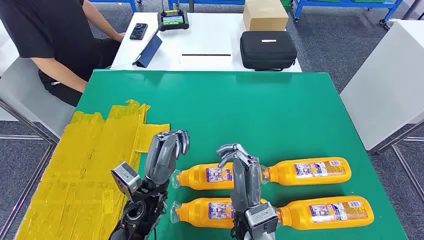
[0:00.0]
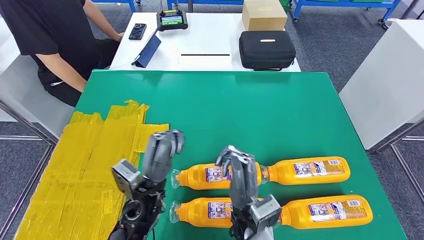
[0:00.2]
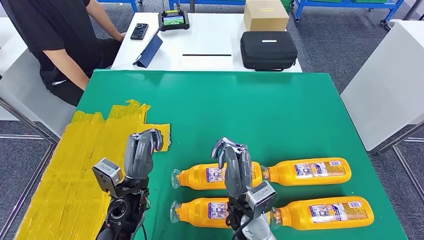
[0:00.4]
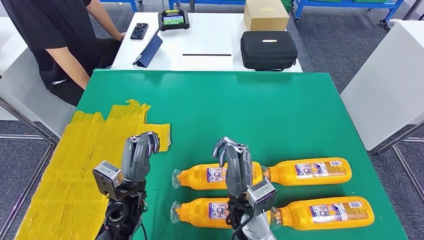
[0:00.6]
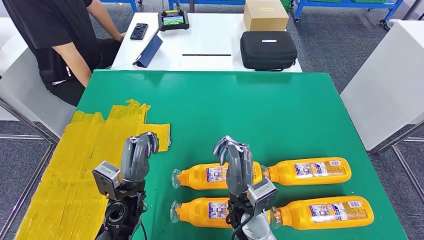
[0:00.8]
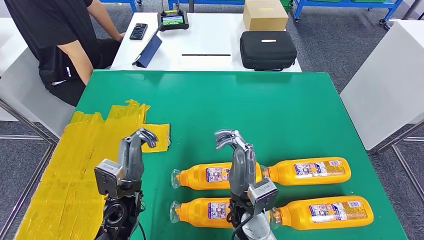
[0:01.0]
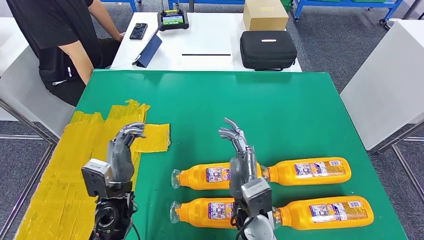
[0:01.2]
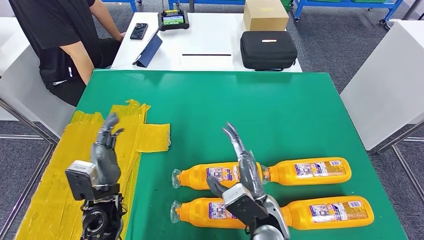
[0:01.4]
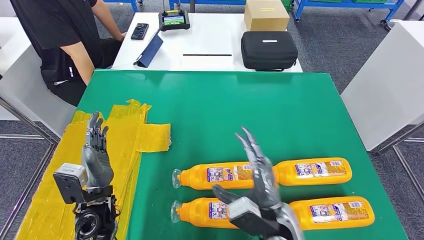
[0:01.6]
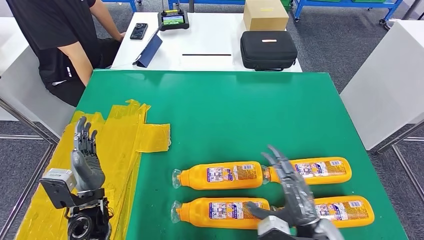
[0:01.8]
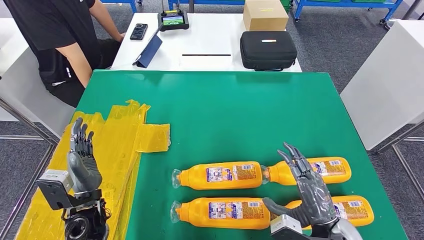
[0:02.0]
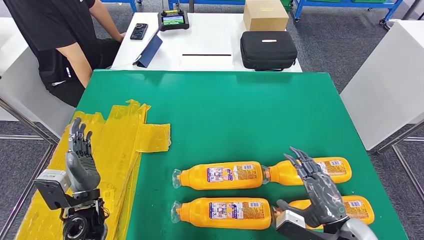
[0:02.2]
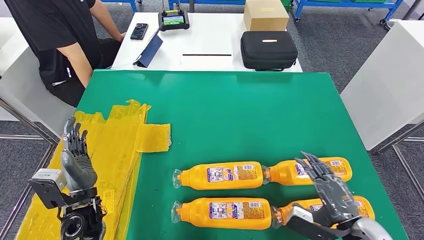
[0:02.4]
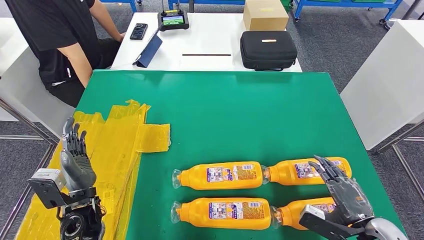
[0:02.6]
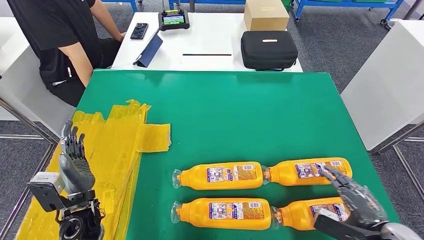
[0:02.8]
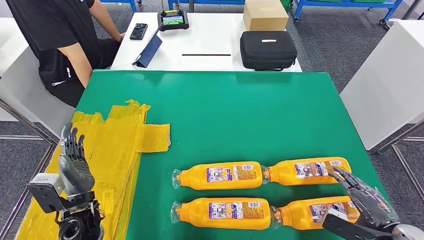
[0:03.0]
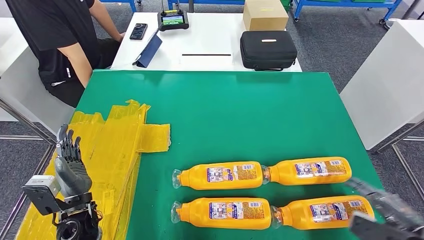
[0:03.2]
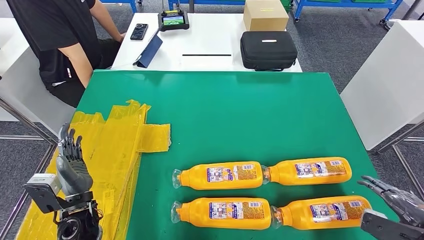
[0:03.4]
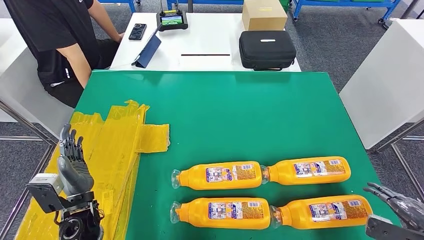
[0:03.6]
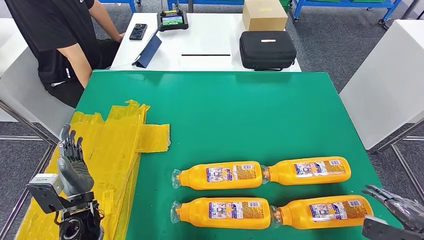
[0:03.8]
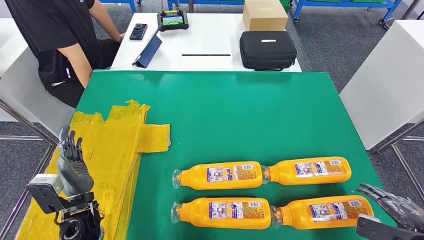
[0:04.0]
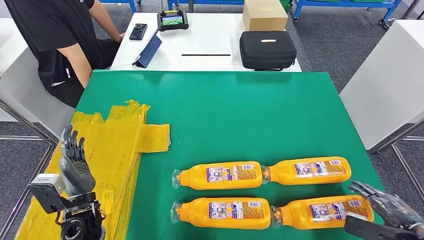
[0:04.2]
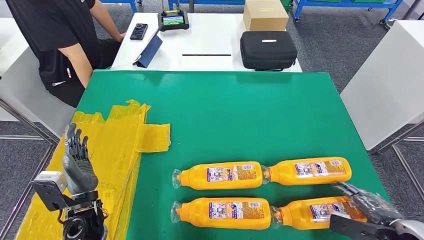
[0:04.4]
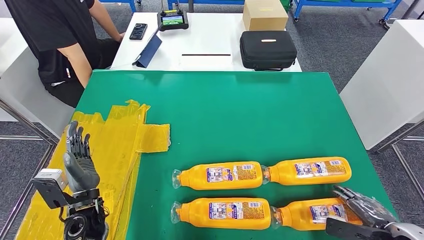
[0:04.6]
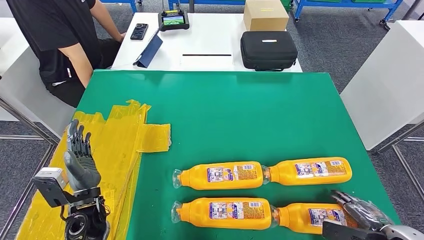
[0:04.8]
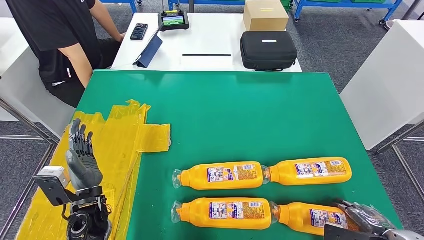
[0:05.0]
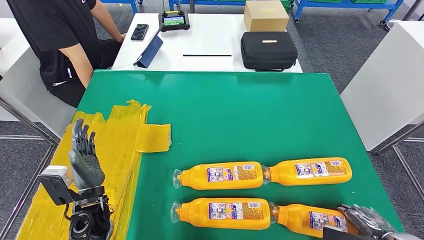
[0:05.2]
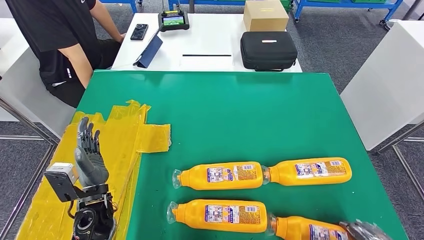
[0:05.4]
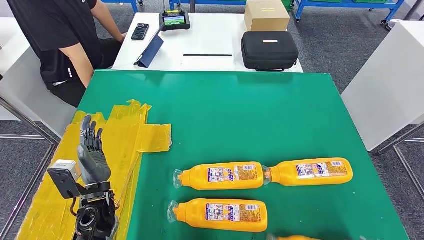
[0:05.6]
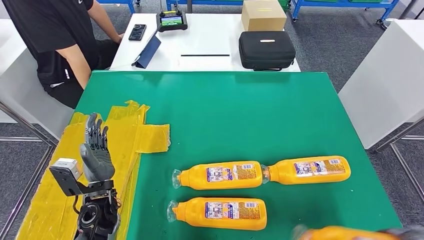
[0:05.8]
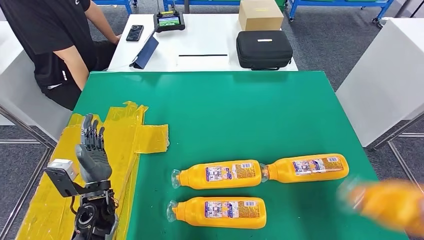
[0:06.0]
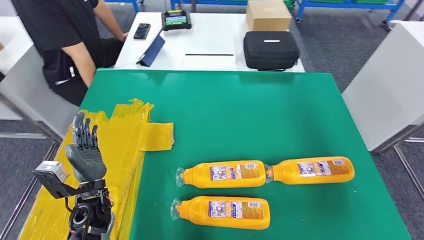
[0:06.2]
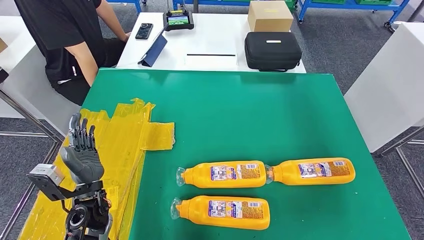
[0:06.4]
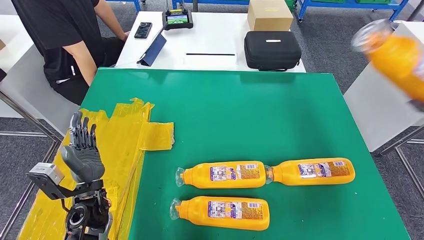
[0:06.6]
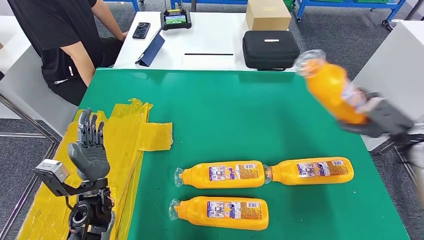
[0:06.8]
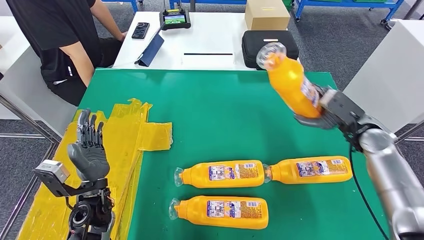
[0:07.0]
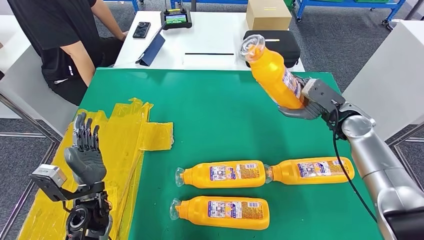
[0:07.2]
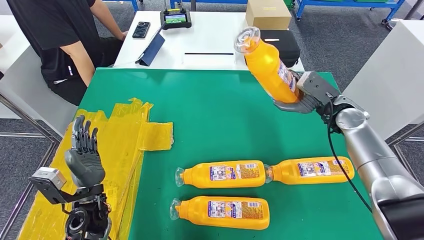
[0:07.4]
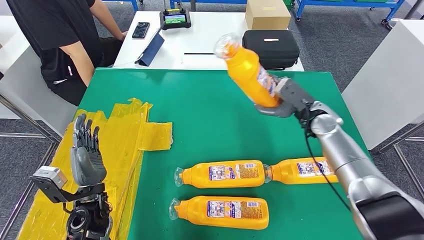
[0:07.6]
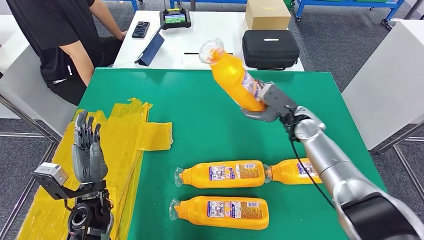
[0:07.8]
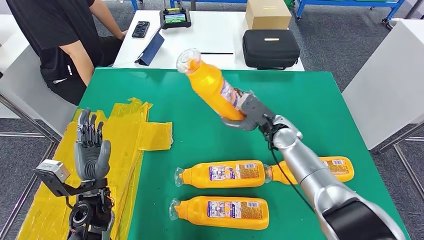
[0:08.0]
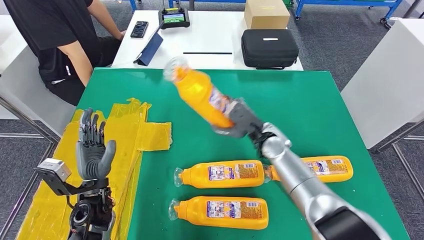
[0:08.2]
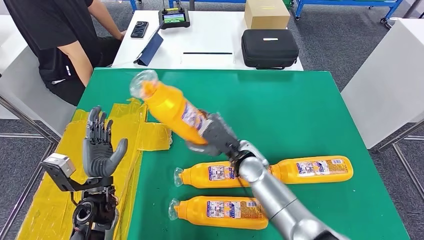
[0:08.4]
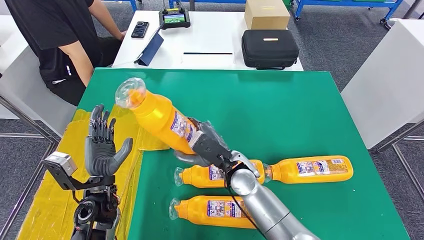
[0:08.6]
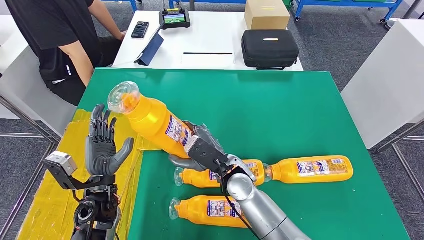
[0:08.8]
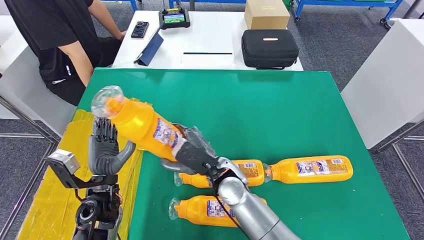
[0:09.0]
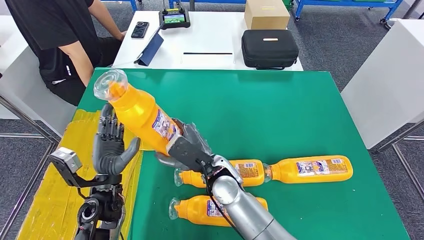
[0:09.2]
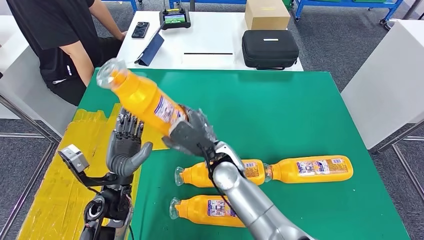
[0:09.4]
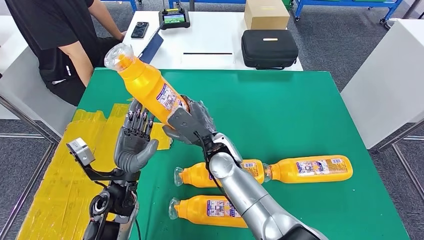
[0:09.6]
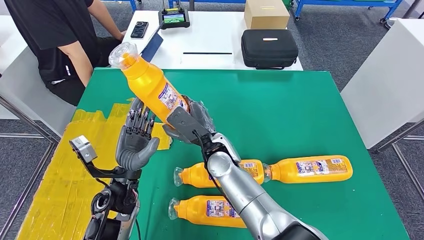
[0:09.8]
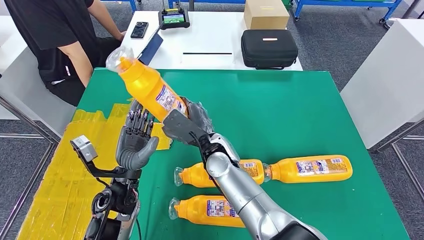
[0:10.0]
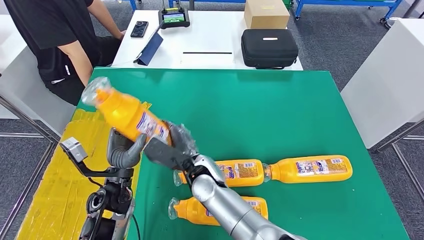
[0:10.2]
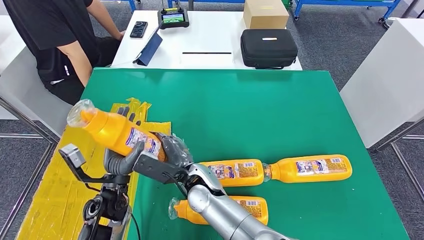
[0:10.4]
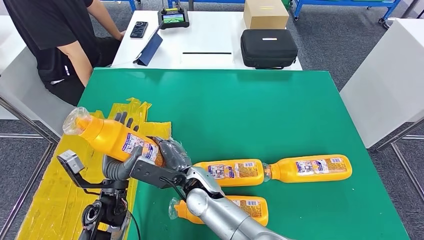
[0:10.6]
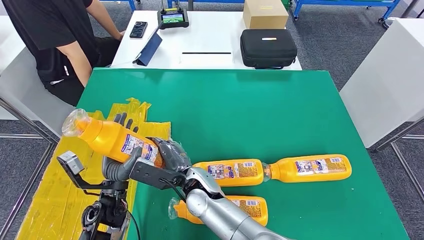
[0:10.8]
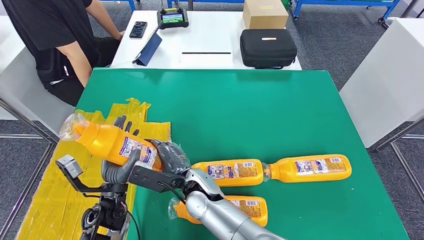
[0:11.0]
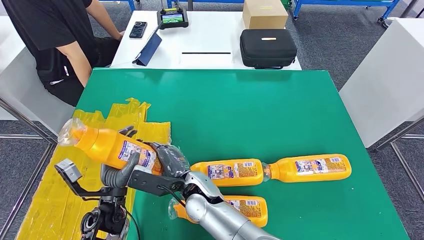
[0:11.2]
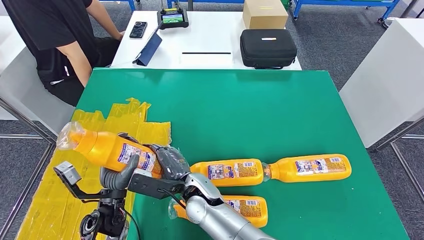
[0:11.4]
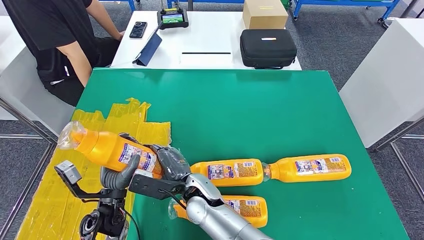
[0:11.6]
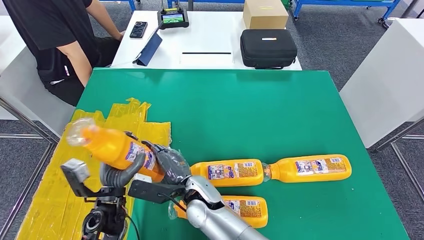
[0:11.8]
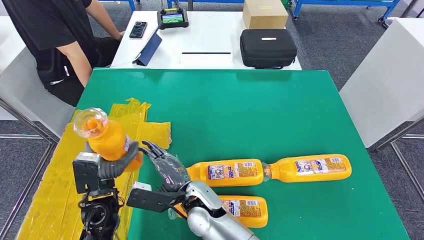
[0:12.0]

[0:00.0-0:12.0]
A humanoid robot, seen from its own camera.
Step, 0:00.0 to 0:07.0: Take the bottle from the table.
0:09.0 to 0:10.4: The right hand is displaced to the left by roughly 10 cm.

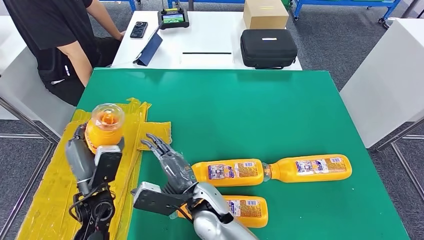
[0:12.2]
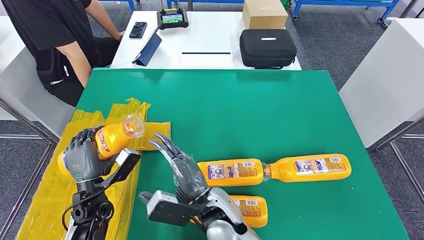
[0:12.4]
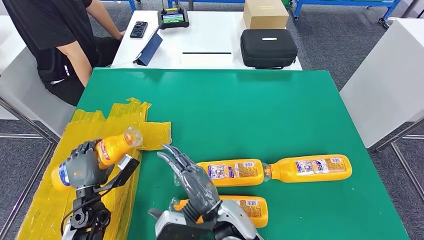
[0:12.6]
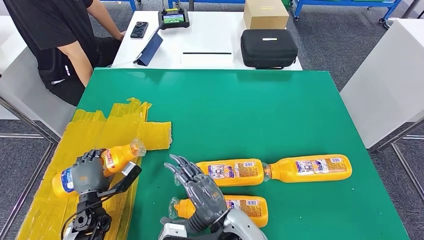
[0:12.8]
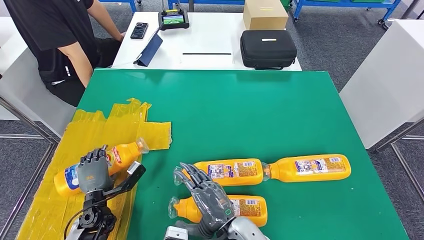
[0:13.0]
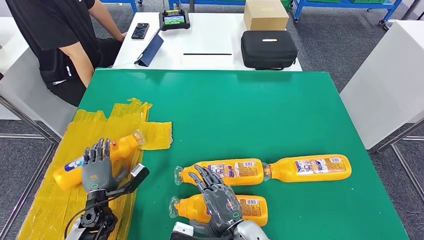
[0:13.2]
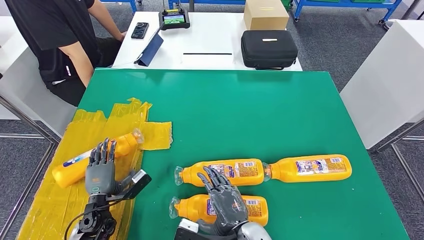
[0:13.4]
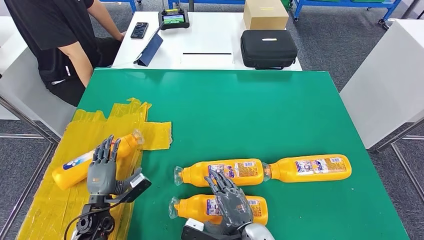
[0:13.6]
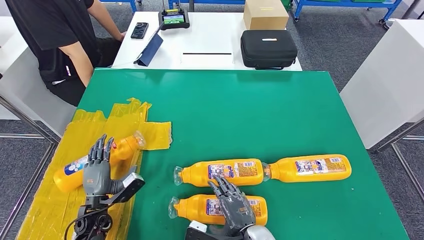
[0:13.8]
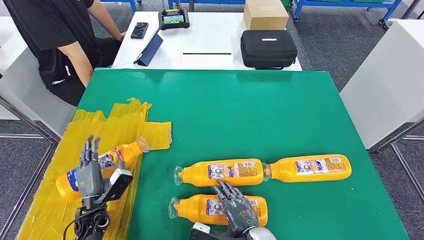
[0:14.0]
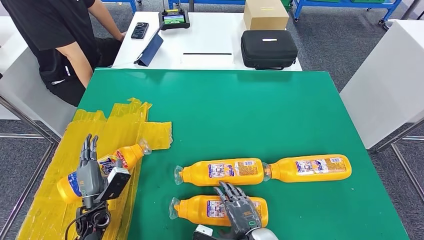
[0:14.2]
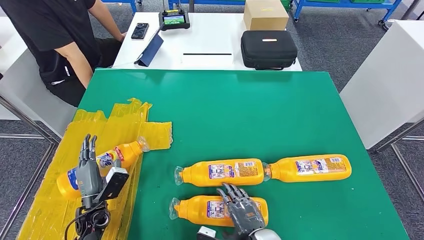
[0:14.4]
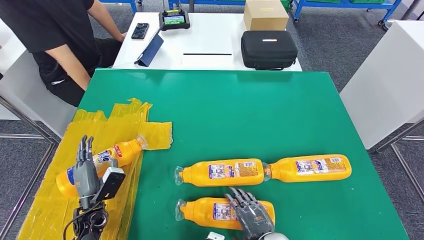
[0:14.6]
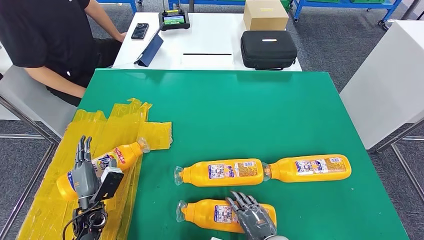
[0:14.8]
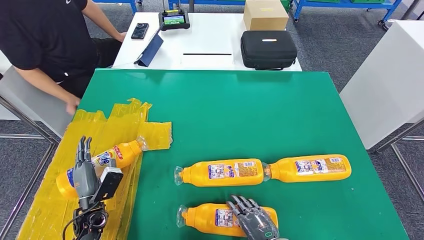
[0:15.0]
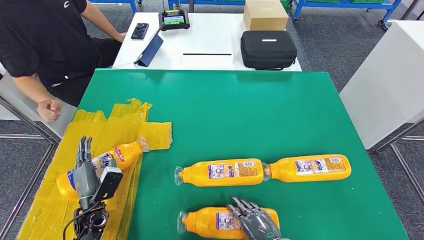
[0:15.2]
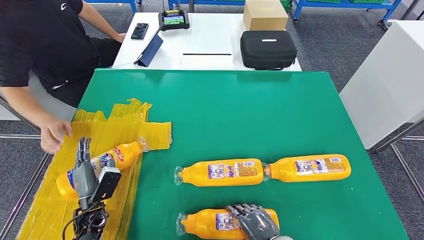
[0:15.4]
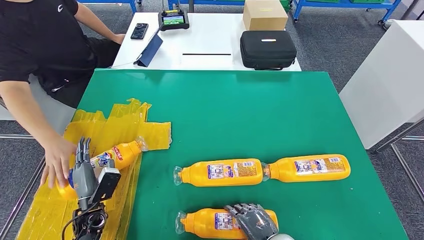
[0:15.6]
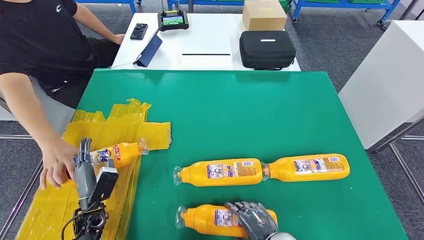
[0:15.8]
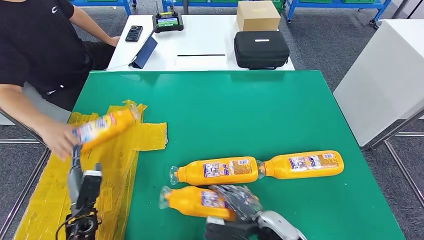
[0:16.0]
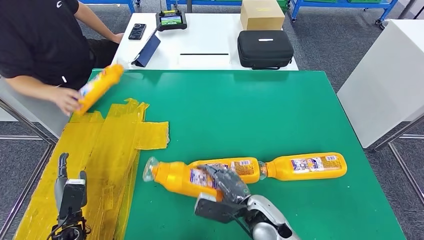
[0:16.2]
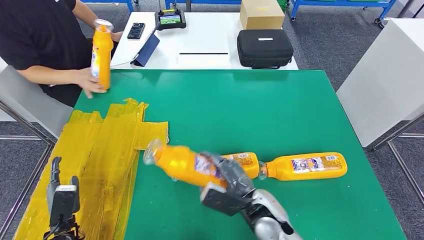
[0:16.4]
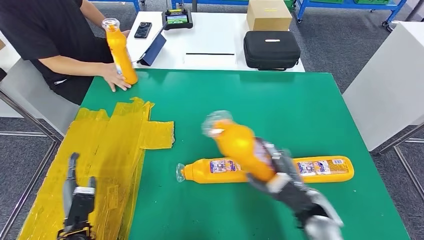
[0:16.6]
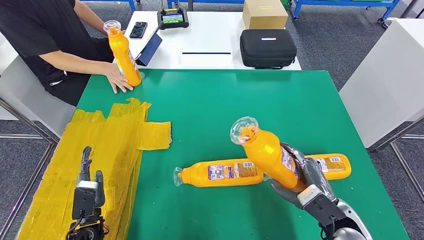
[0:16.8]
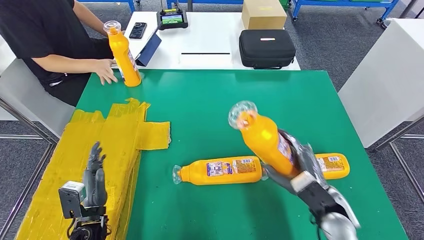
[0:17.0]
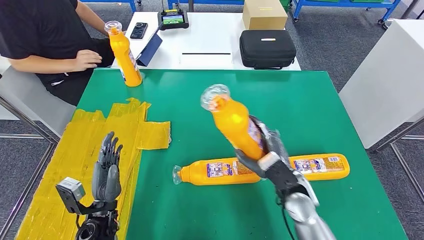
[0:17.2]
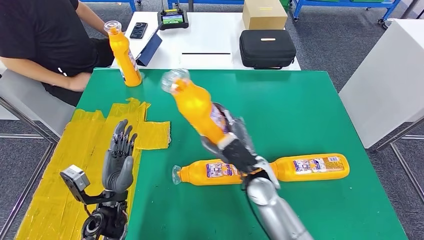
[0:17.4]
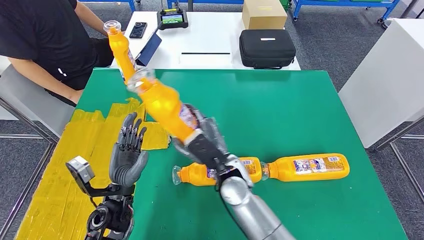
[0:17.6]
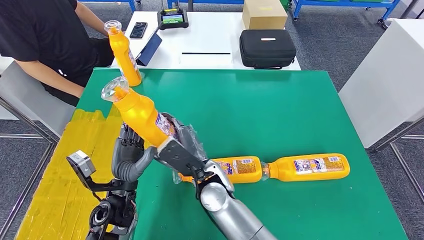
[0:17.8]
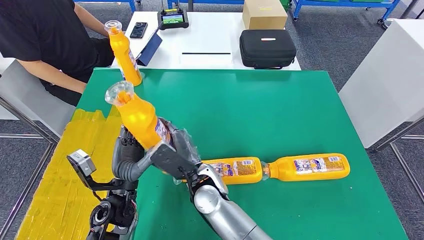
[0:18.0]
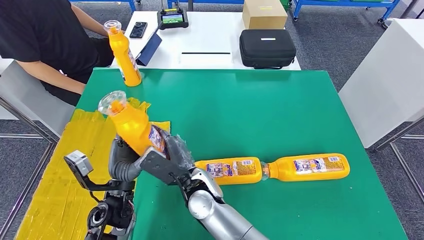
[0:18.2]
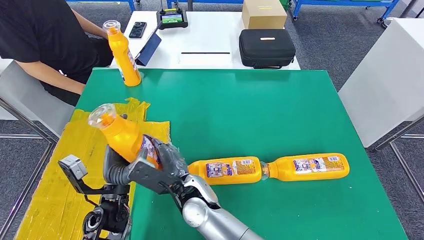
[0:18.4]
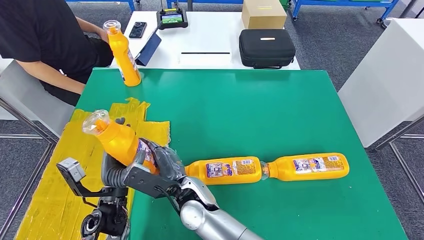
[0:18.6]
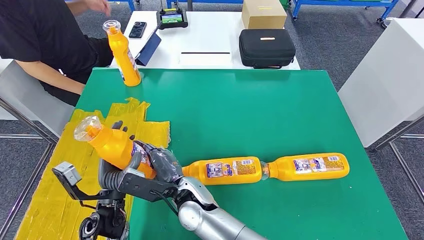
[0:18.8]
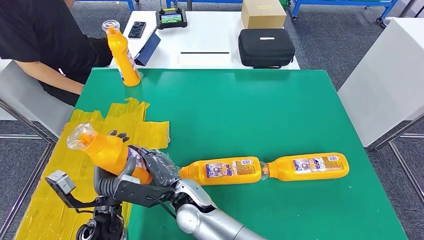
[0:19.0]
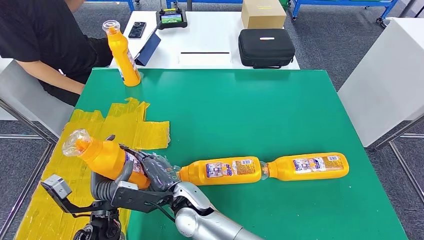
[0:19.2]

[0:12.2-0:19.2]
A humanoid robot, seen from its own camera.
Step, 0:12.2 to 0:14.6: Flip the bottle to face forward.
0:12.2 to 0:13.6: The left hand travels downward by approximately 10 cm. Meanwhile the right hand goes roughly 15 cm to the right and backward.
0:13.6 to 0:15.0: The right hand goes approximately 10 cm to the right.
0:17.8 to 0:19.2: The right hand goes approximately 5 cm to the left; the left hand shifts by some 5 cm.
